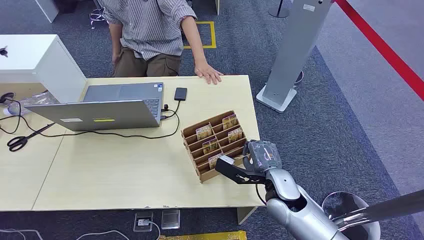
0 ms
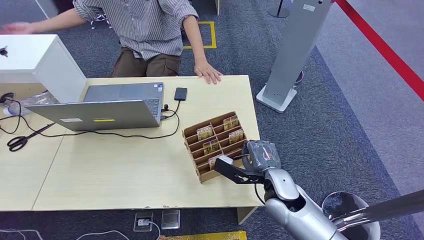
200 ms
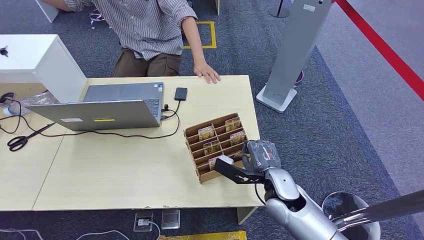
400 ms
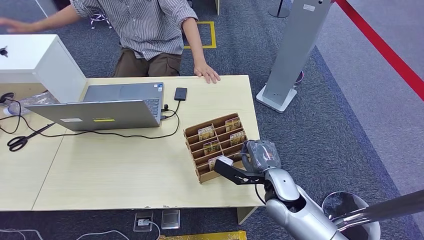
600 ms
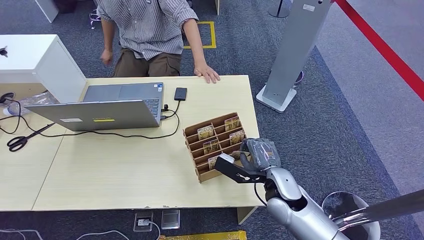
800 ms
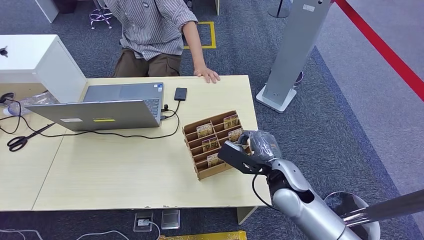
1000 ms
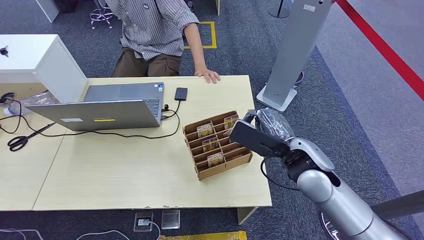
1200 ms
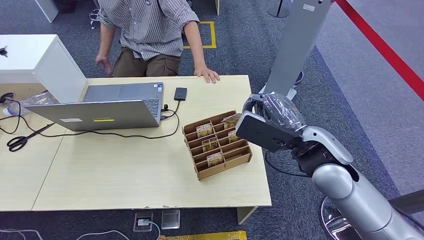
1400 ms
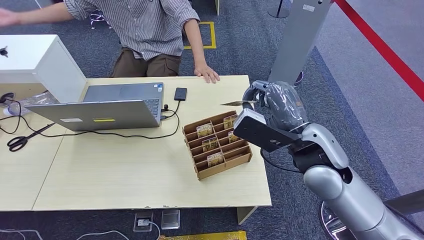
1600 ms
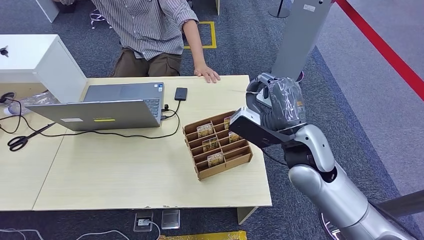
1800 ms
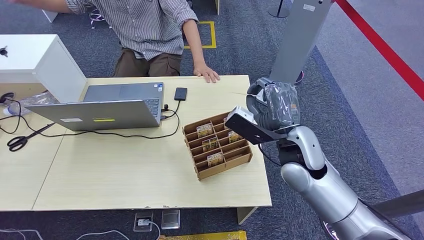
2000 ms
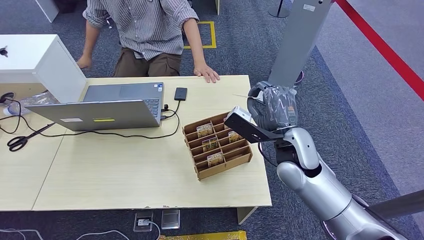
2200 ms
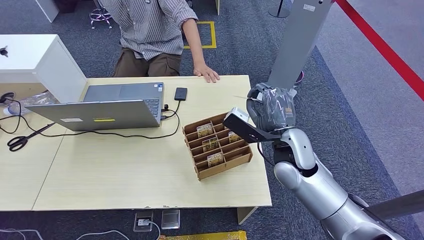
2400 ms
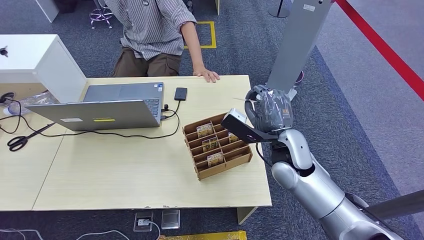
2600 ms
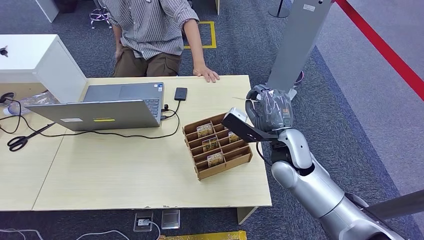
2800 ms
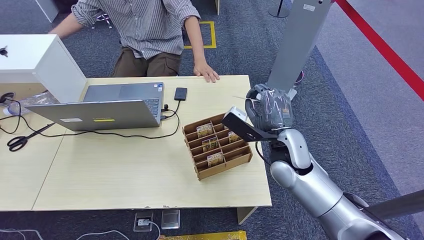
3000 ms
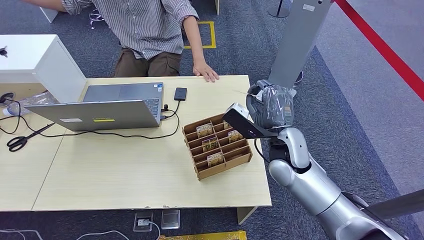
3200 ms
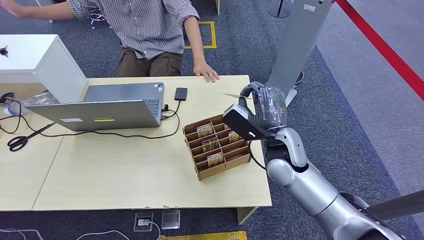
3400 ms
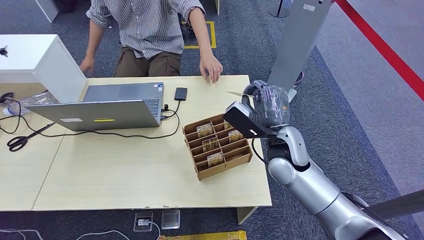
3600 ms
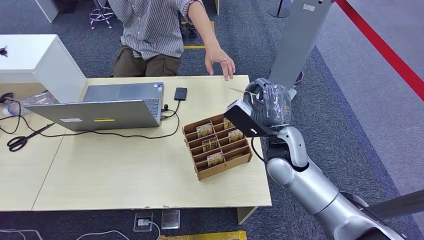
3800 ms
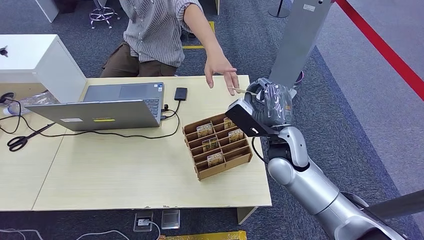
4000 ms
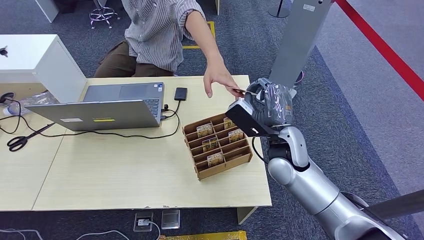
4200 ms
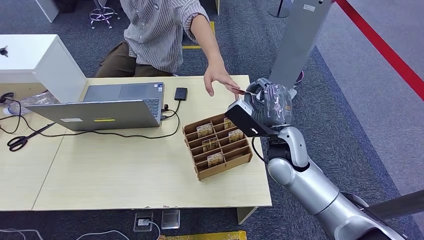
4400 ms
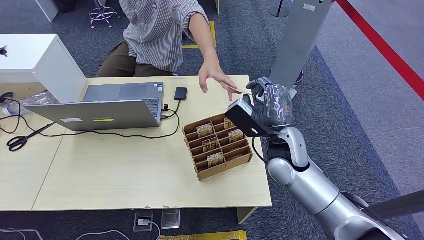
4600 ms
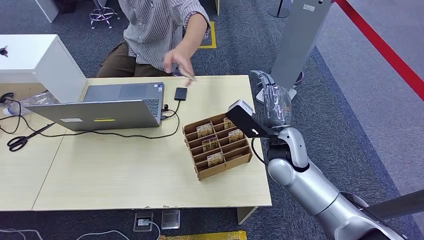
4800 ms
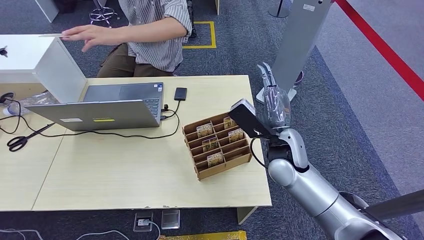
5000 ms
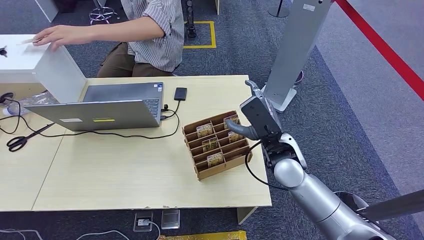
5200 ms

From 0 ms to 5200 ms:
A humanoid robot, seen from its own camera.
Step, from 0 ms to 1000 ms: Pick up the key card from the card box.
Step, from 4400 ms to 5200 ms: Hand the key card to the target.
From 1800 ms to 3400 ms: The right hand is displaced downward by approximately 5 cm.

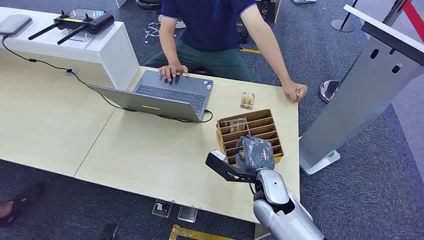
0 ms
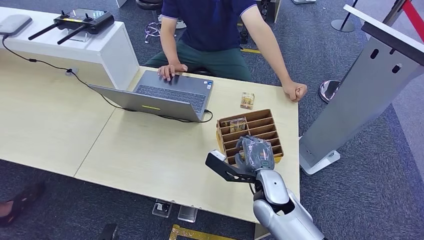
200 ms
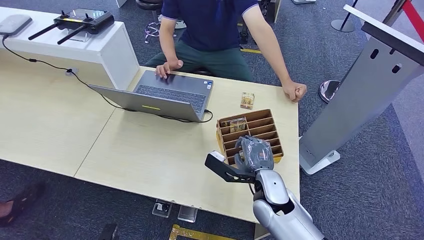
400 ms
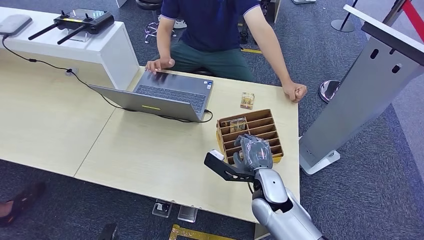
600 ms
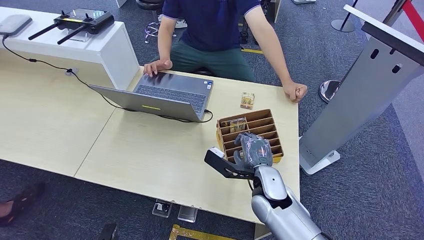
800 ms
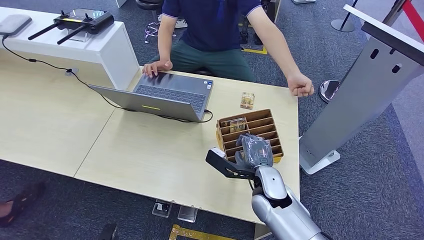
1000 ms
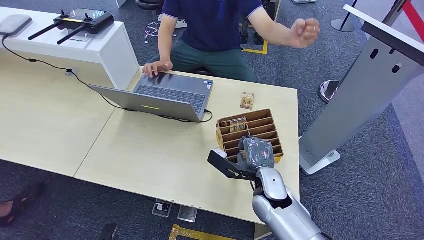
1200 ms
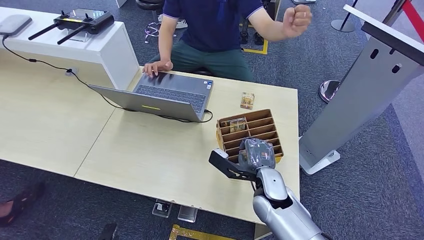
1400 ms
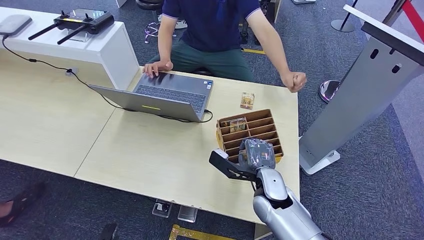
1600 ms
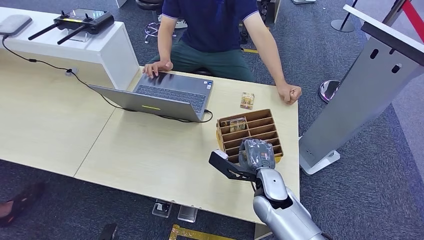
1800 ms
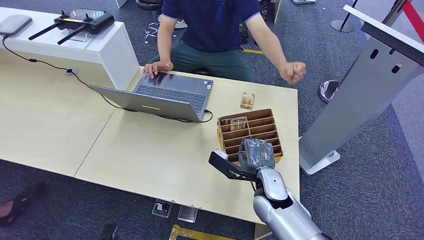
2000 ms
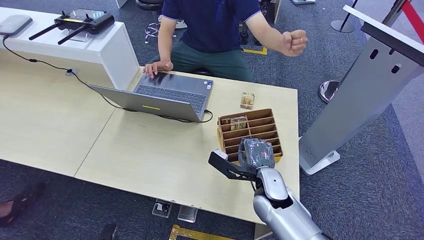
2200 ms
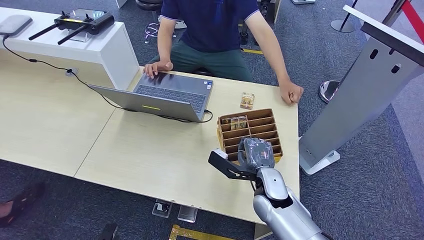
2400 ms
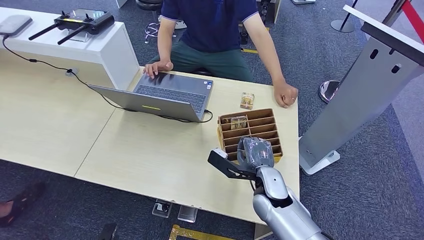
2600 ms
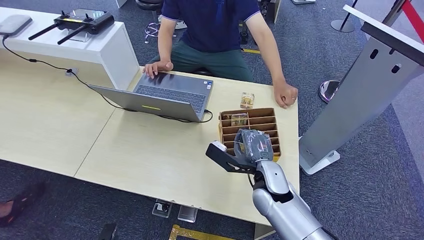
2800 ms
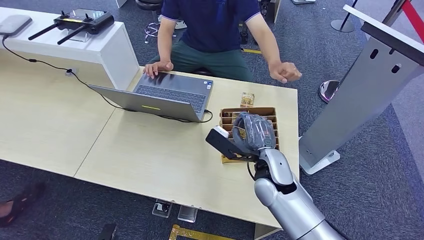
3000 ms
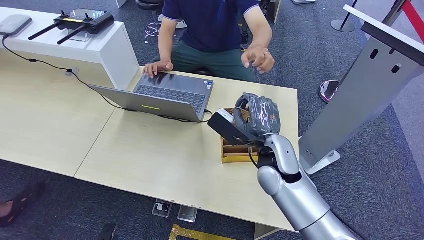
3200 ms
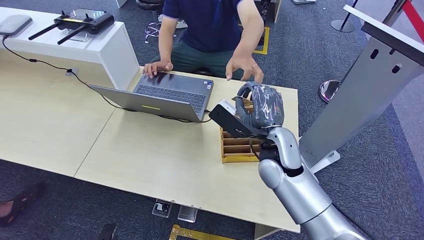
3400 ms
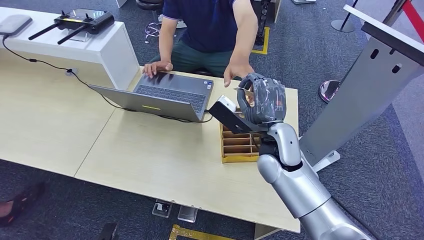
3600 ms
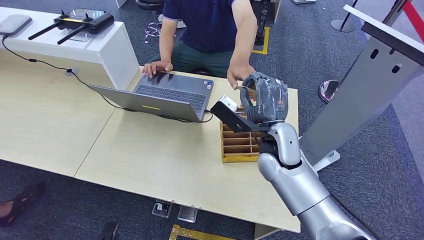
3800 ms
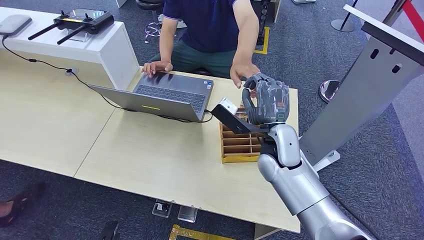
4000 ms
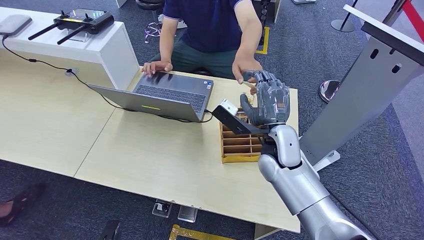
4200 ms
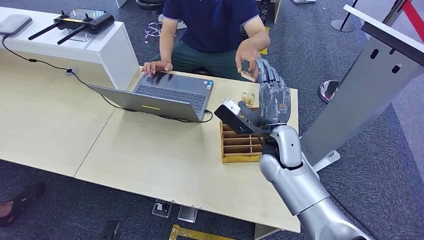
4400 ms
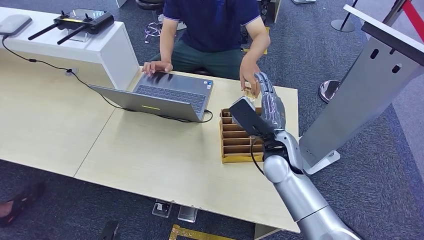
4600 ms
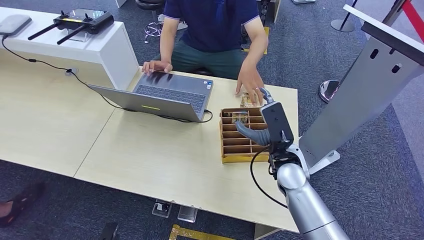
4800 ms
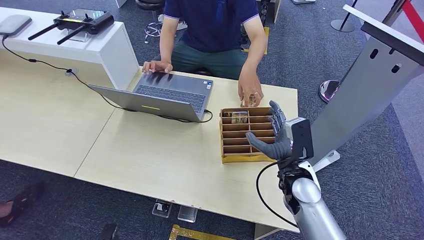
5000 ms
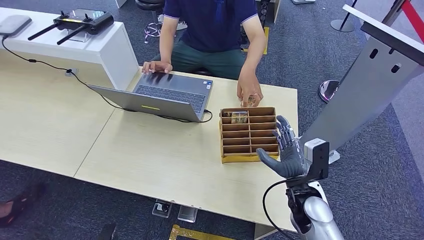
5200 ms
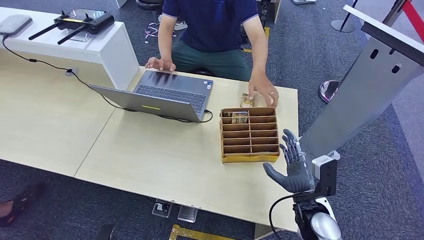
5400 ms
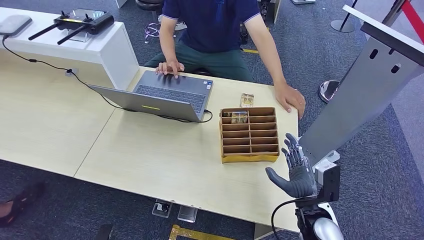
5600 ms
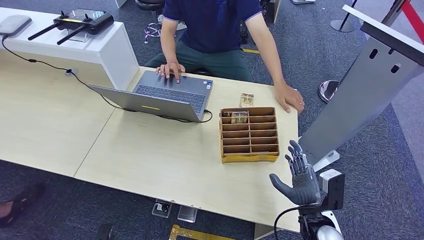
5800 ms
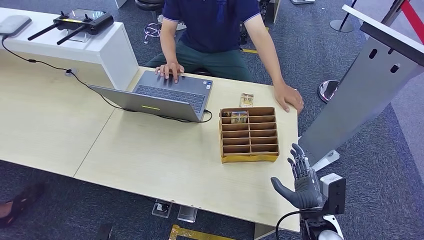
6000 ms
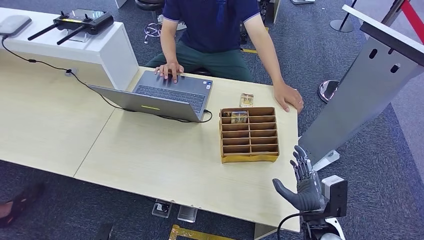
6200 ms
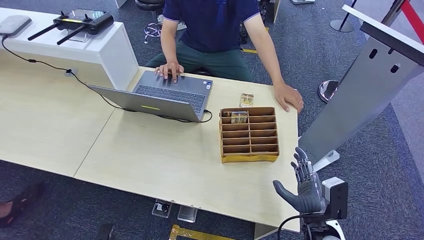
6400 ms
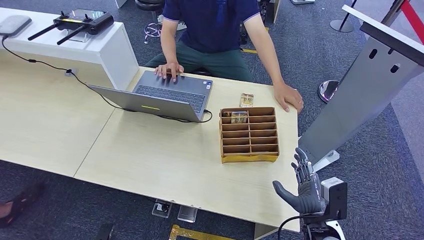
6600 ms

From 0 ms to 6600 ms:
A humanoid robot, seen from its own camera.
Step, from 0 ms to 2400 ms: Pick up the key card from the card box.
Step, from 2600 ms to 6600 ms: Hand the key card to the target.
From 1600 ms to 3200 ms: The right hand goes approximately 10 cm upward.
From 3200 ms to 5000 ms: The right hand travels to the right and downward by roughly 10 cm.
From 5000 ms to 6600 ms: The right hand is displaced backward, to the right and downward by some 15 cm.
